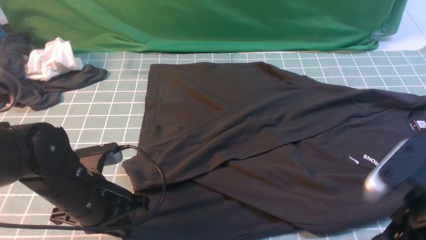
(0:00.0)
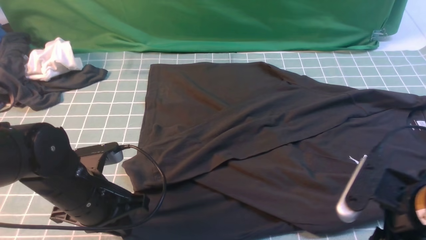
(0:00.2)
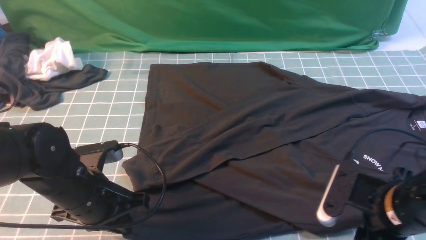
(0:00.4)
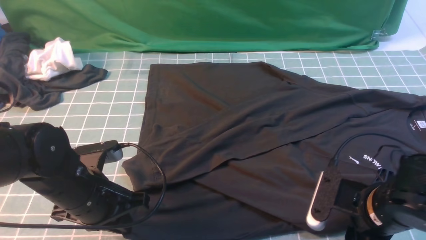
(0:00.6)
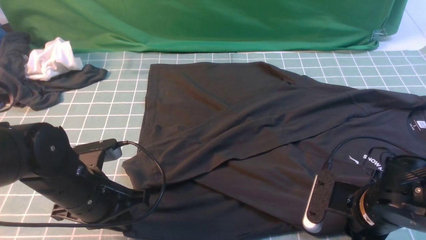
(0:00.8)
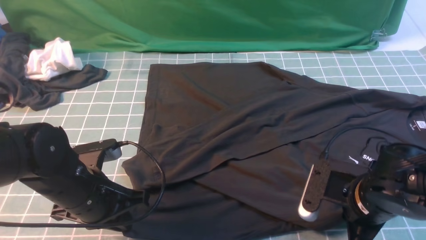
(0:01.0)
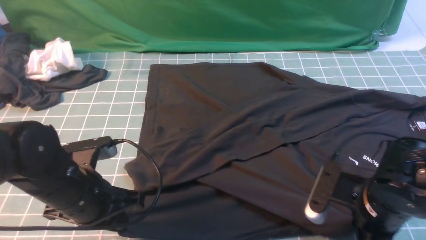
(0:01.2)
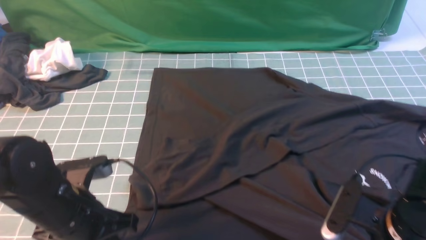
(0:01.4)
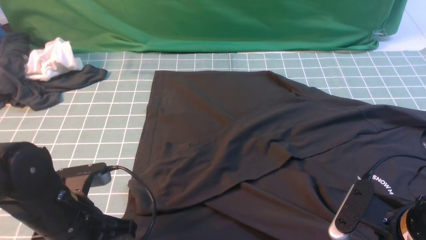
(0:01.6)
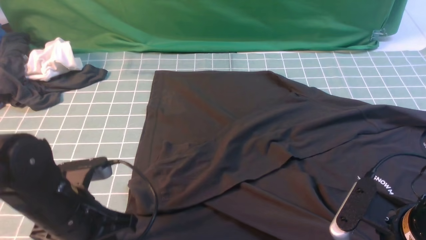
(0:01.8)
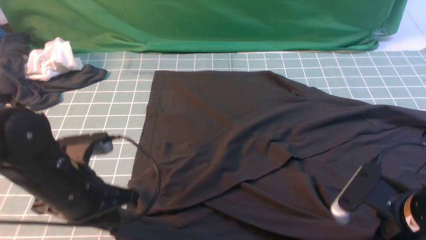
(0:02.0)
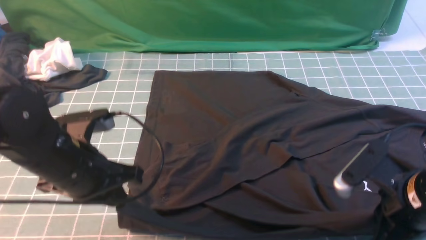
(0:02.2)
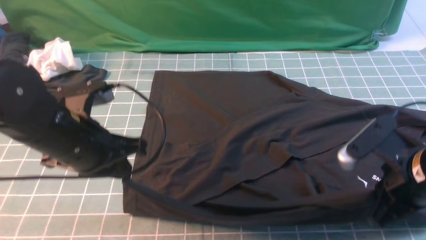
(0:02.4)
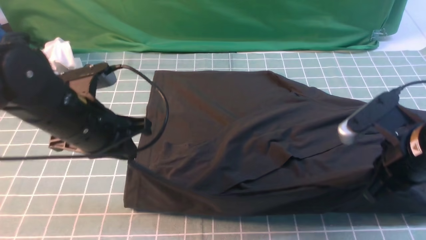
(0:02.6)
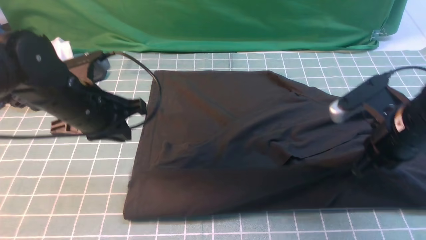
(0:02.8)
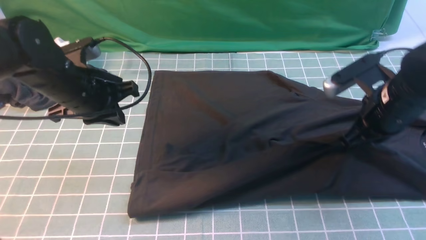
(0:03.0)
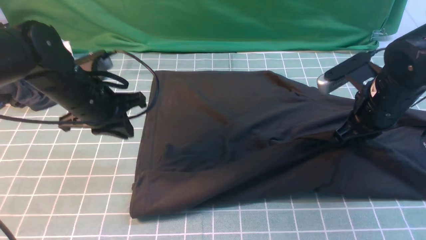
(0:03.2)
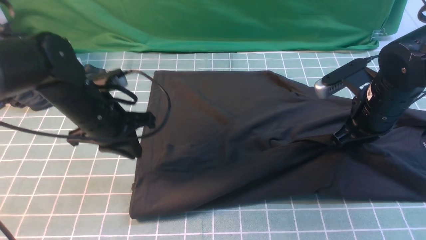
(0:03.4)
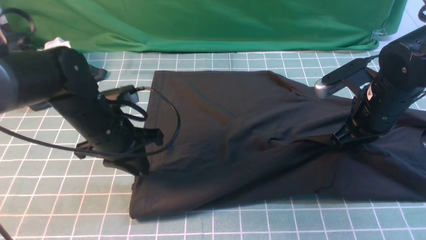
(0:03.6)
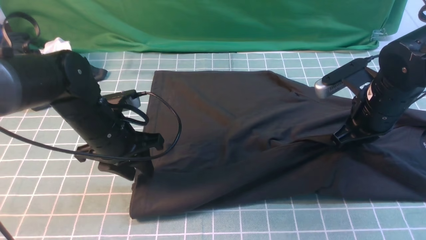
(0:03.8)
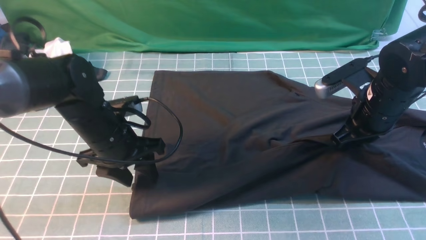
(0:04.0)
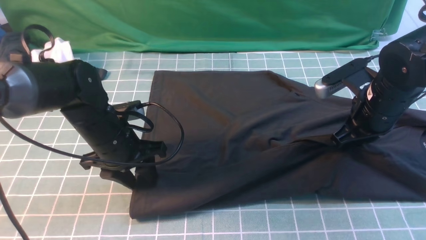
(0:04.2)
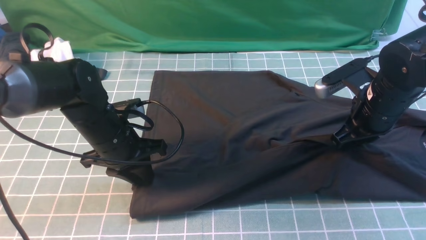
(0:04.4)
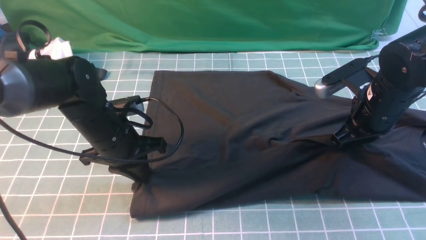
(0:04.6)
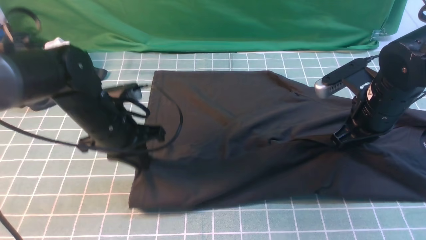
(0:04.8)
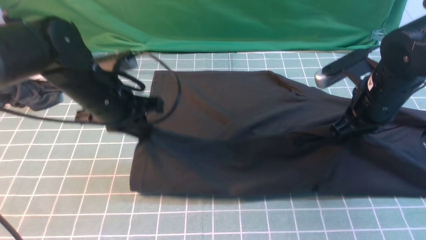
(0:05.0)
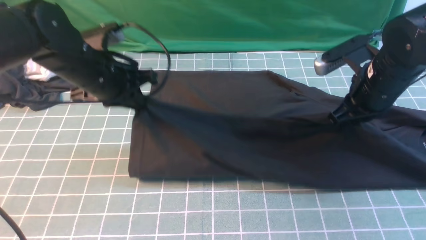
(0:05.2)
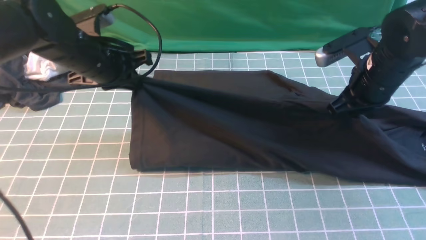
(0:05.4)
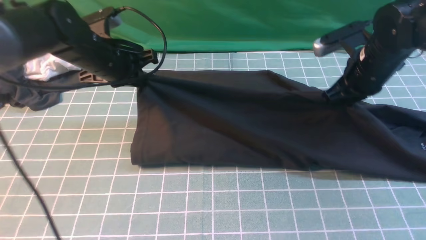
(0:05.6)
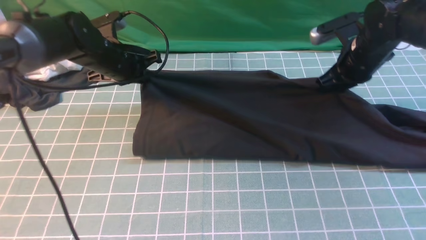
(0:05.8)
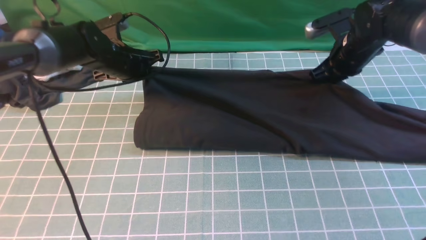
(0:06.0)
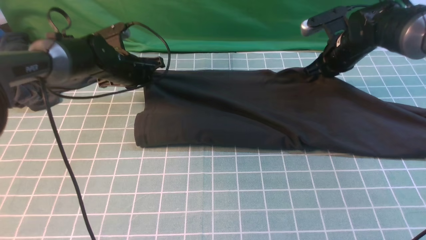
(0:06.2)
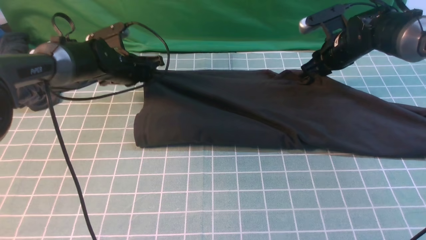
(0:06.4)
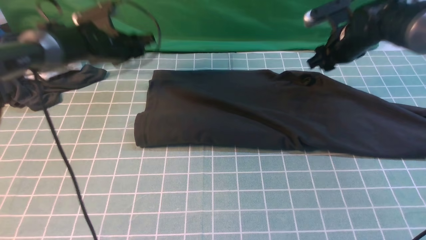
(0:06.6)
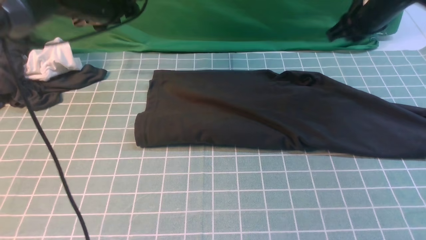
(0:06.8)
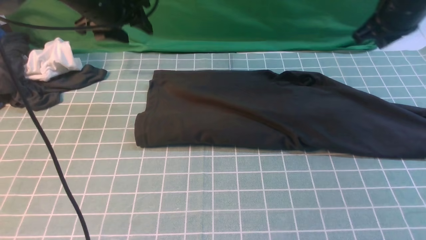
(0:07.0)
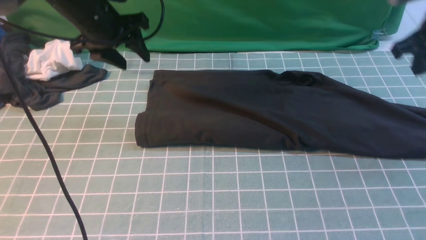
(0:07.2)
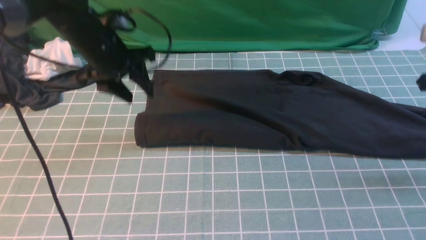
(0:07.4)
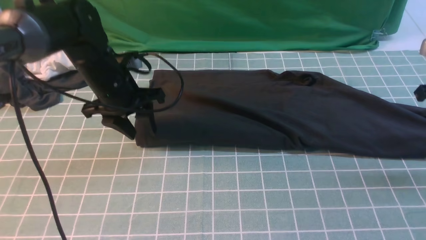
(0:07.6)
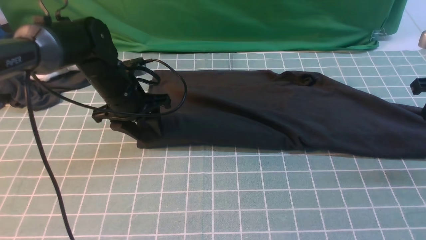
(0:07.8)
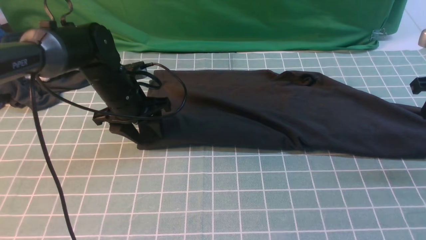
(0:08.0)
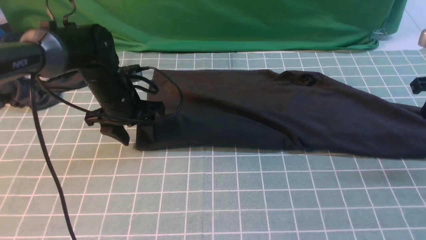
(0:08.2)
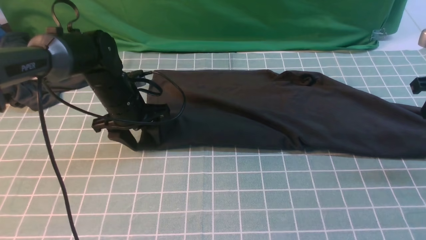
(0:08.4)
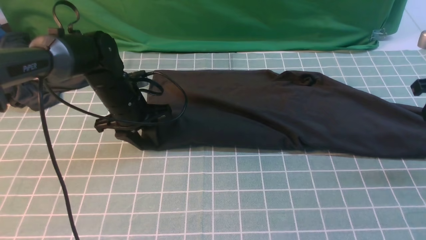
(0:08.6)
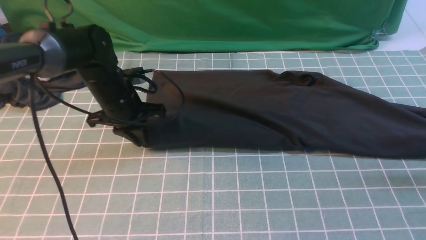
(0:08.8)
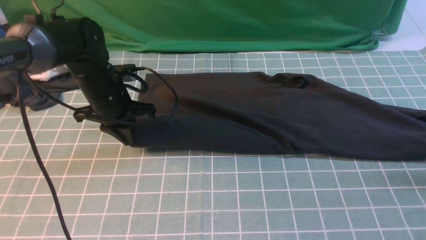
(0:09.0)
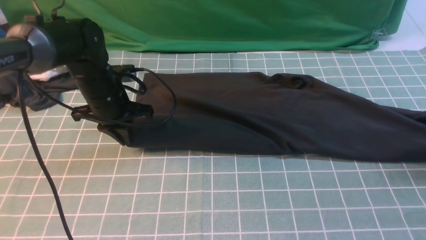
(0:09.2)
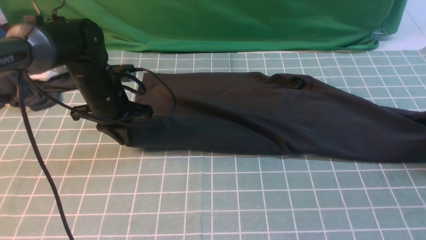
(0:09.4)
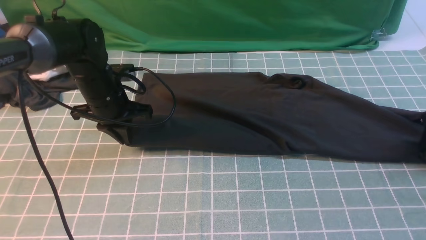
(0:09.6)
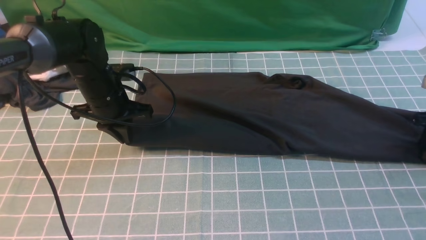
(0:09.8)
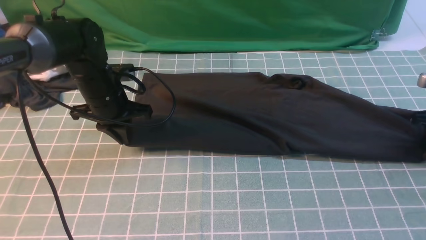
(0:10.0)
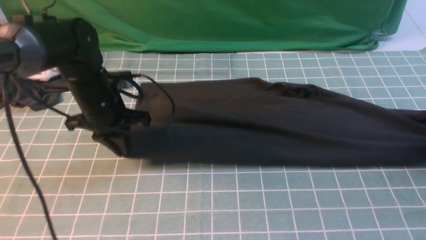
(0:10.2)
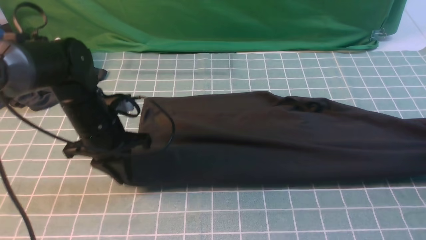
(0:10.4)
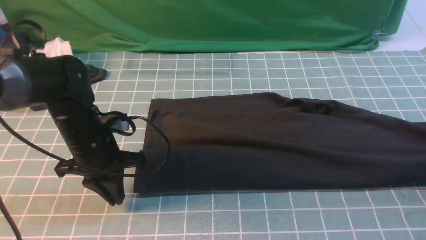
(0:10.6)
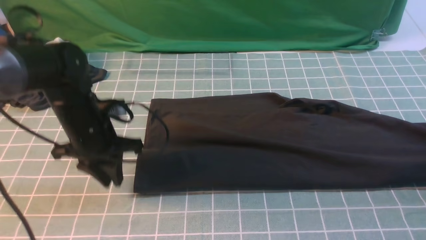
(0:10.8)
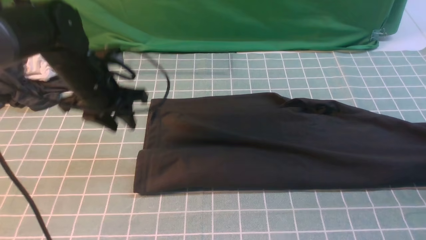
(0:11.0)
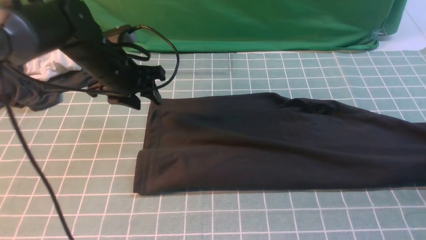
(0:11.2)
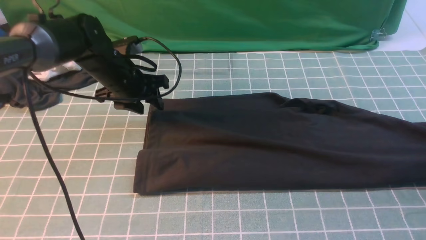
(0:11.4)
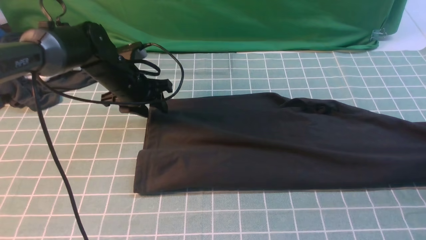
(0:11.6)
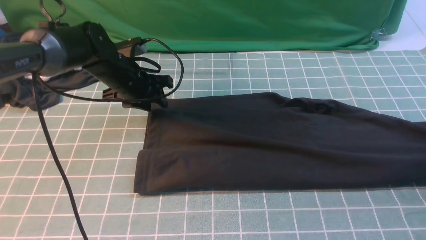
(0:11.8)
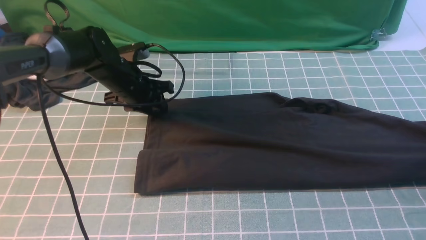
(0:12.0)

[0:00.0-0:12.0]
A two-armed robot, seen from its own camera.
Step, 0:01.6 to 0:06.8: use both arms to drag the lower edge of the fabric forward and fold it over the upper edge.
0:00.0 to 0:01.6: The right gripper travels downward by roughly 5 cm, and closes its fingers.
0:01.6 to 0:03.0: The right gripper travels forward by some 15 cm; the left gripper is displaced forward and upward by approximately 15 cm.
0:03.0 to 0:04.4: The left gripper moves downward, roughly 5 cm, and opens, then closes once more.
0:04.4 to 0:06.0: The two grippers go approximately 15 cm forward.
0:06.0 to 0:07.6: The left gripper heads backward, covering roughly 5 cm, goes upward and returns, about 10 cm each way, and opens. Meanwhile the right gripper shifts approximately 20 cm to the right and backward, and opens, then closes again.
0:07.6 to 0:09.0: The left gripper closes its fingers, while the right gripper is displaced to the right by roughly 5 cm, and opens up.
0:09.0 to 0:10.4: The left gripper is displaced backward by about 5 cm. The right gripper heads to the right, covering about 5 cm, and closes up.
0:10.4 to 0:12.0: The left gripper moves forward, roughly 10 cm, and opens.

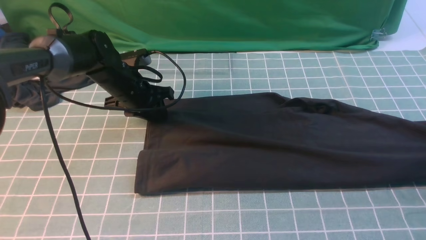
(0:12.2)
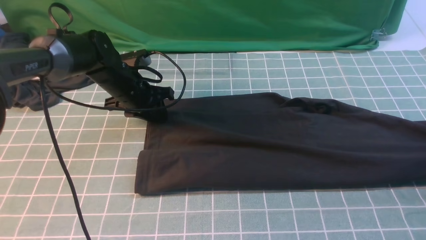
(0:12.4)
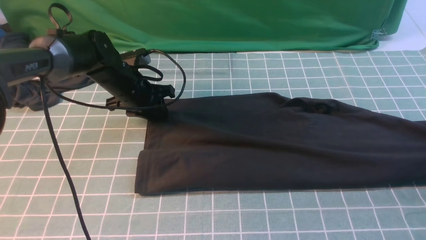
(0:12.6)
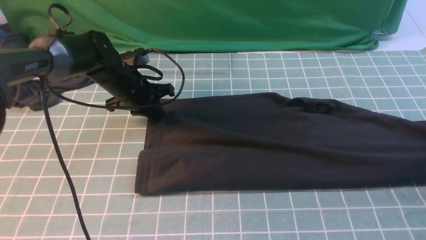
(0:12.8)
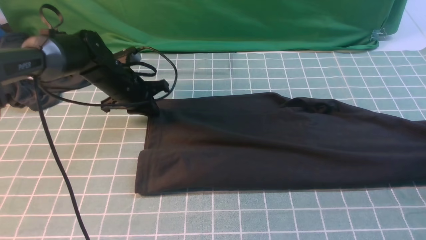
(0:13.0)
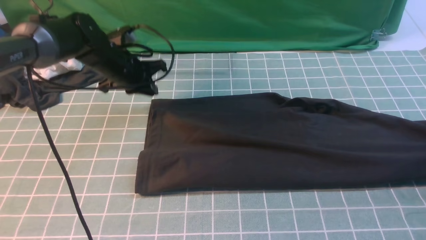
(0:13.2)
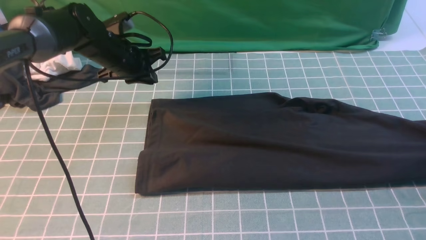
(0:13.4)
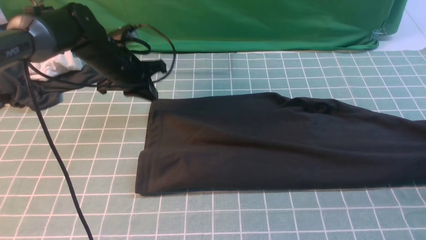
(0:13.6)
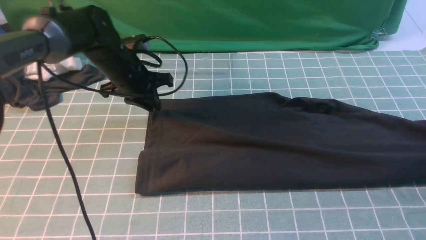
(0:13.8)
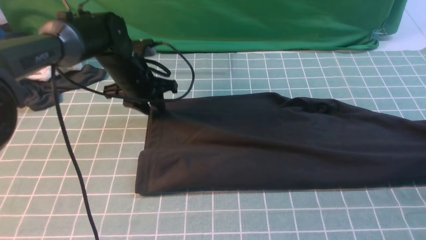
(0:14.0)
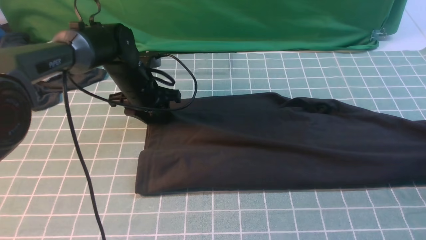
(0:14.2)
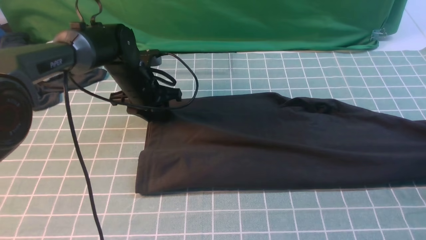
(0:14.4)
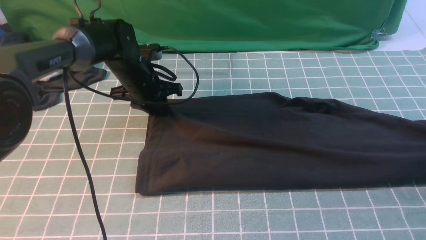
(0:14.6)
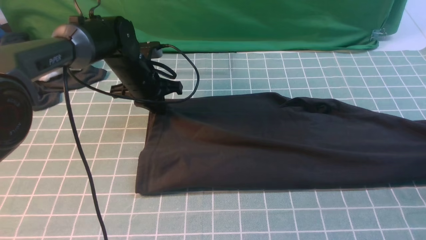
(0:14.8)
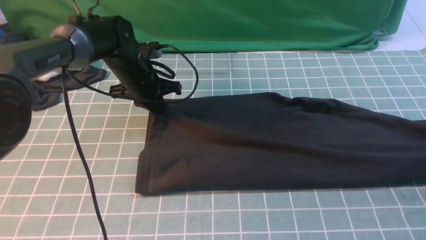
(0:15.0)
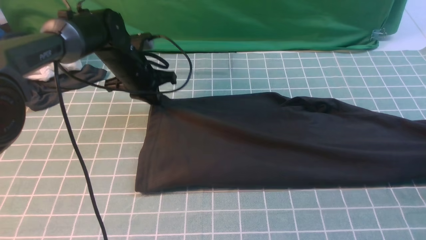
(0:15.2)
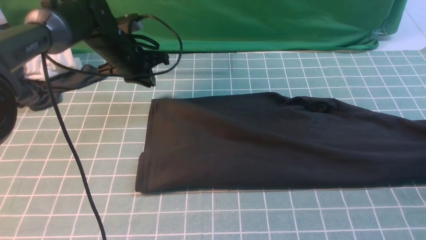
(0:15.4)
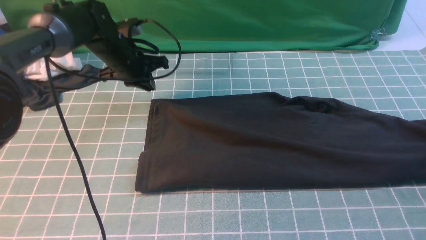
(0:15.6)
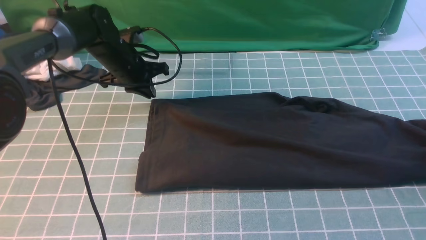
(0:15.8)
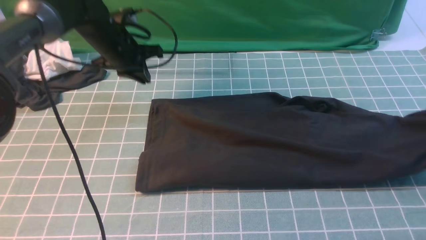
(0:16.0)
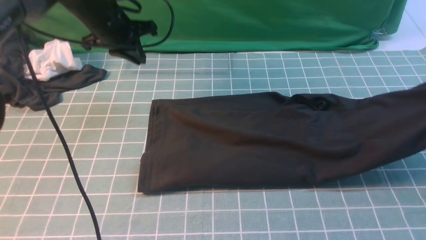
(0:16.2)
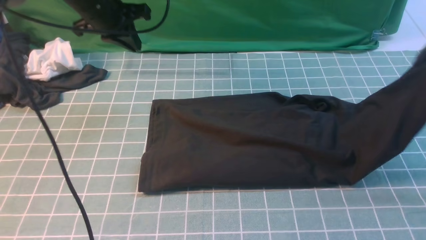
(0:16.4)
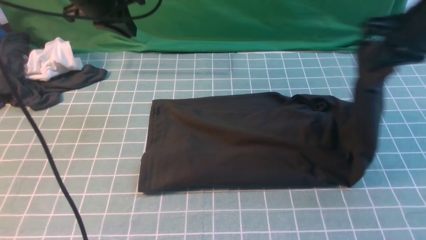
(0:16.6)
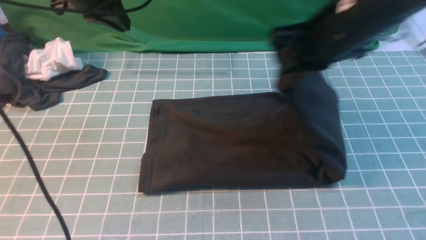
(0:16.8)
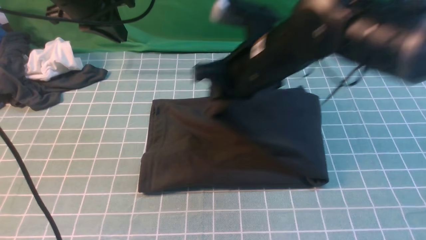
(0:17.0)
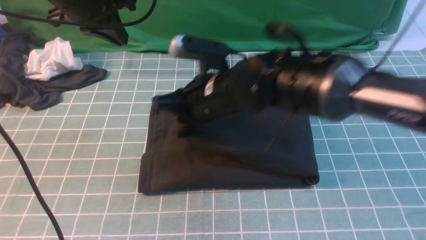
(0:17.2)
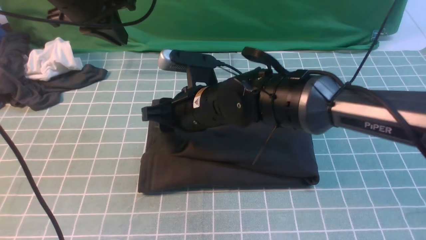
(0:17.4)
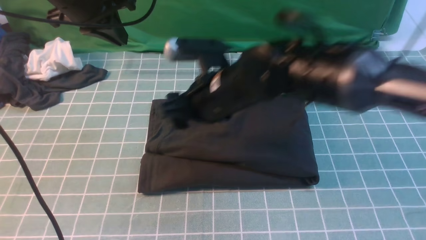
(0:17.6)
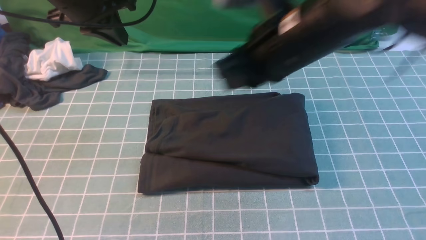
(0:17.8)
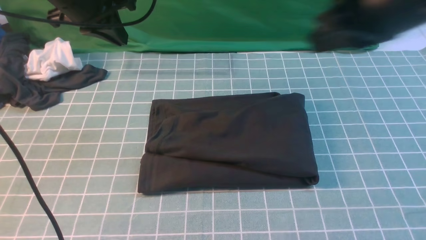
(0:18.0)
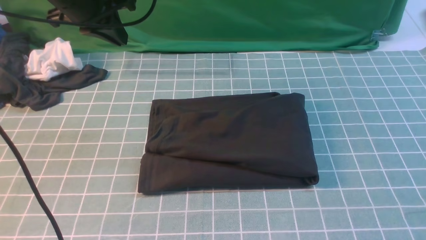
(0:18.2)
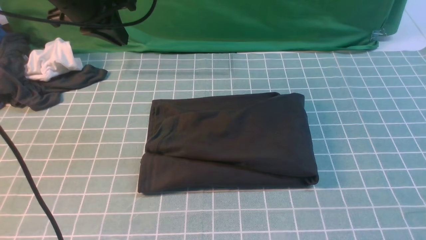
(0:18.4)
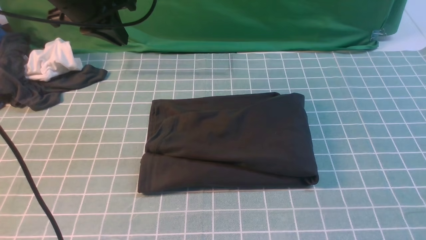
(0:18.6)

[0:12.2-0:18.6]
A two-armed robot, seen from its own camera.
Step, 0:12.2 to 0:15.8: use the right arm to clamp the right edge of the fabric.
Step, 0:16.0 to 0:17.8: use the right arm to drag the right edge of the fabric to the left and folds it over the left edge.
0:12.2 to 0:13.8: The grippers make only small movements.
0:13.8 to 0:15.4: The left gripper opens, then closes once more.
0:15.4 to 0:17.0: The right gripper goes roughly 40 cm to the left, while the left gripper heads upward, covering about 15 cm.
0:17.0 to 0:18.6: The right gripper heads to the right, backward and upward, covering some 35 cm, and opens and closes again.
